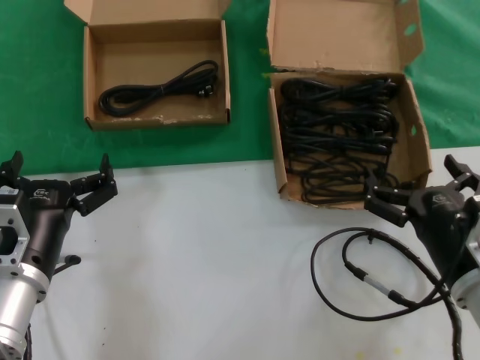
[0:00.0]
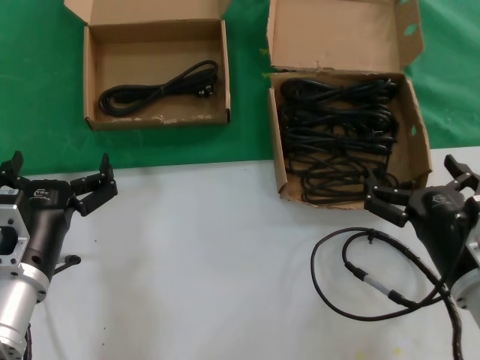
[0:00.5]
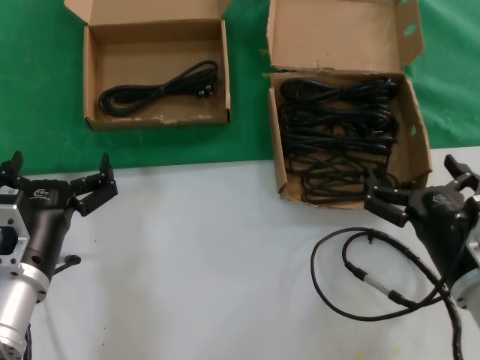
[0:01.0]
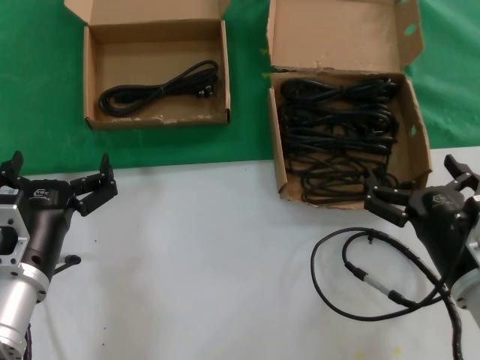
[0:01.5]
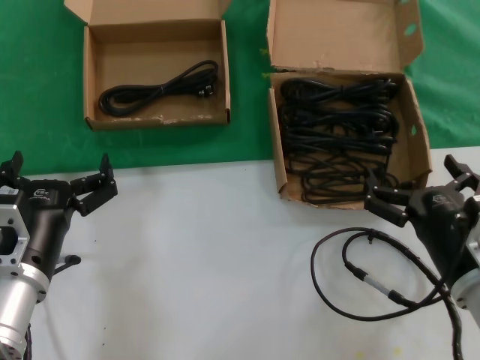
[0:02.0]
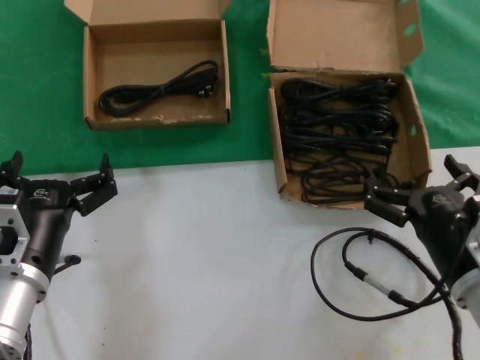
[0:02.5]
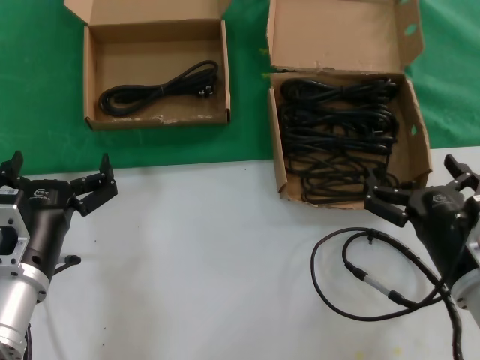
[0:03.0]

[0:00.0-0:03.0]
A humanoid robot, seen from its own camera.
Task of the whole recording: take the parts from the box containing them and put them into an empty box.
0.0 to 3.0 s: The two hands keep their place.

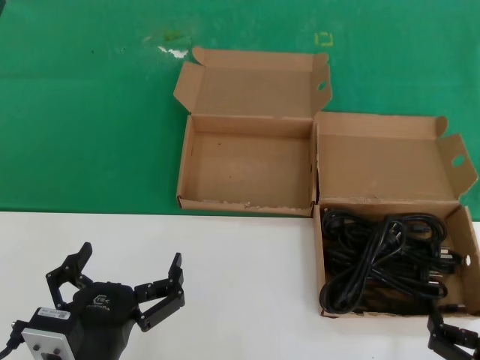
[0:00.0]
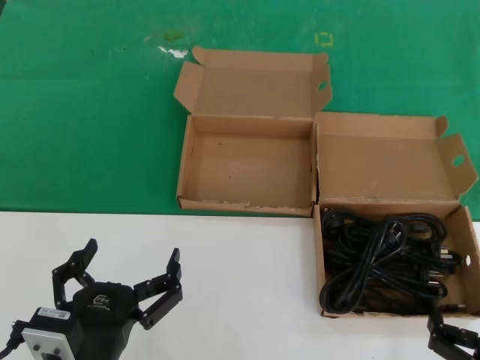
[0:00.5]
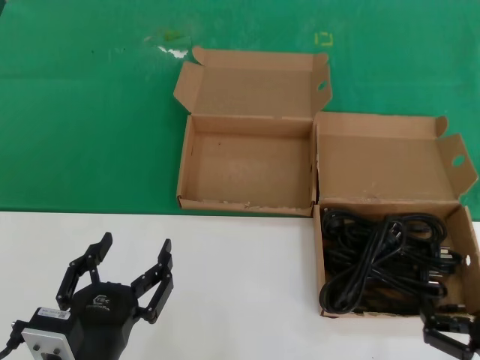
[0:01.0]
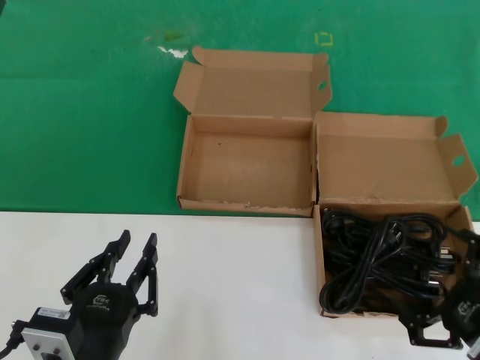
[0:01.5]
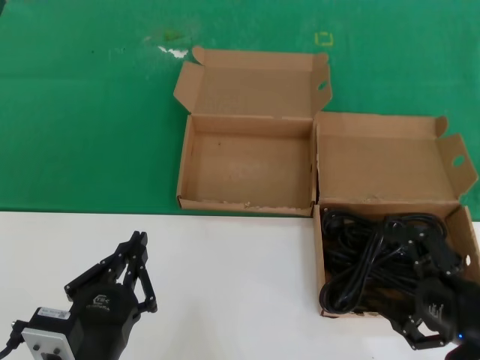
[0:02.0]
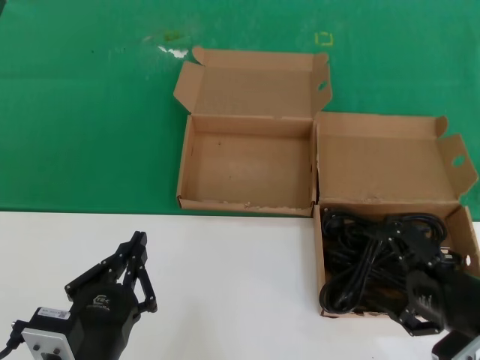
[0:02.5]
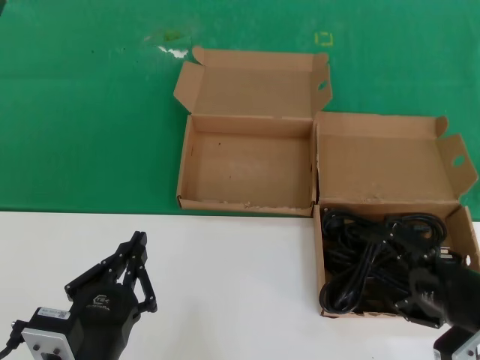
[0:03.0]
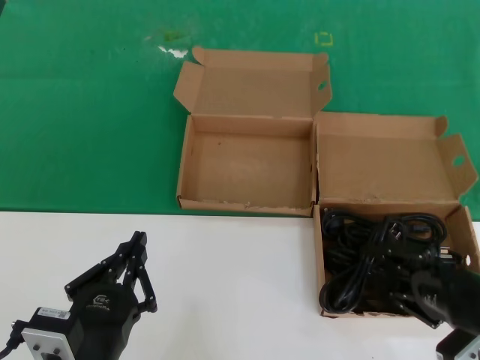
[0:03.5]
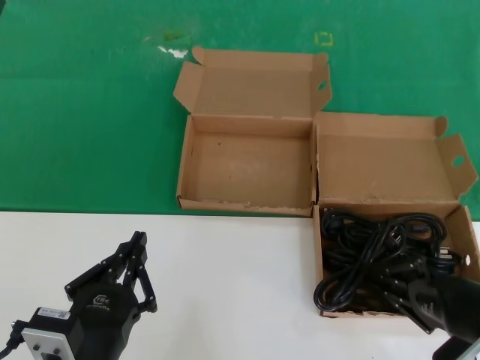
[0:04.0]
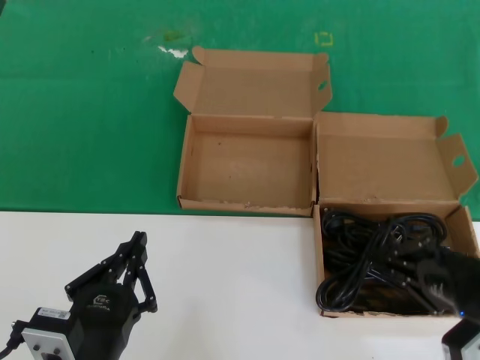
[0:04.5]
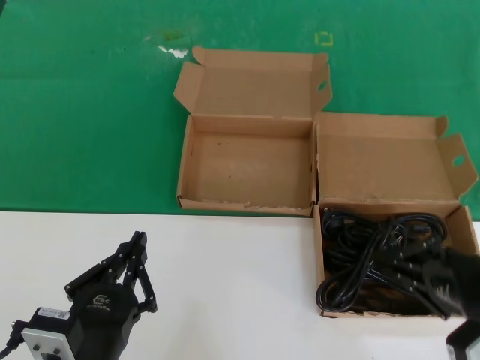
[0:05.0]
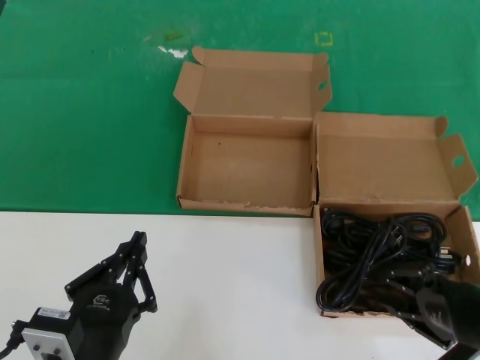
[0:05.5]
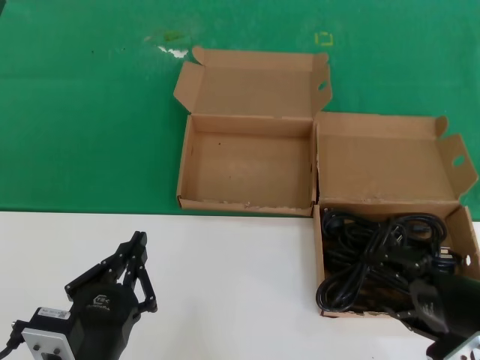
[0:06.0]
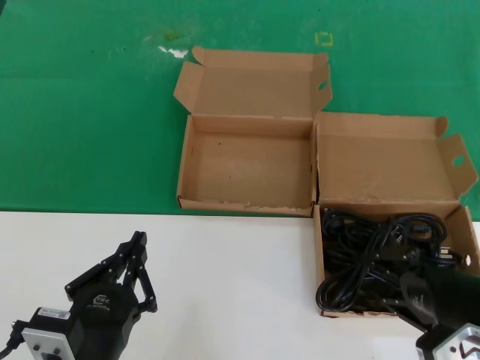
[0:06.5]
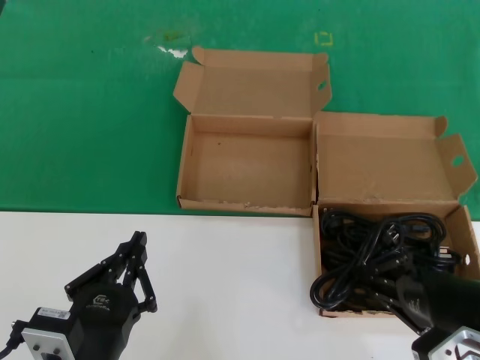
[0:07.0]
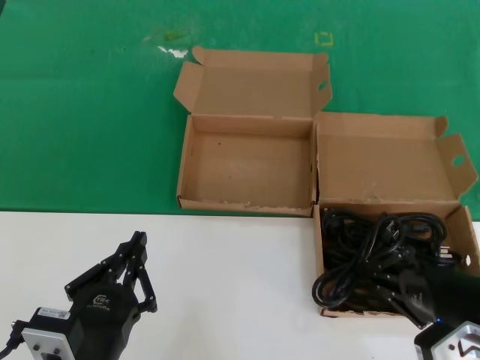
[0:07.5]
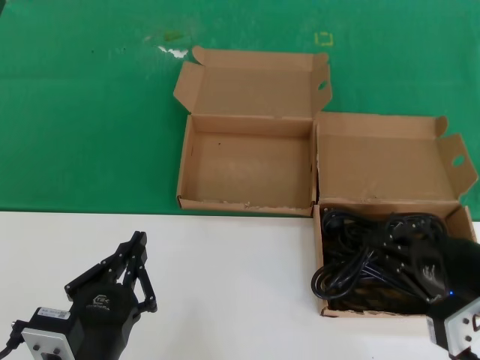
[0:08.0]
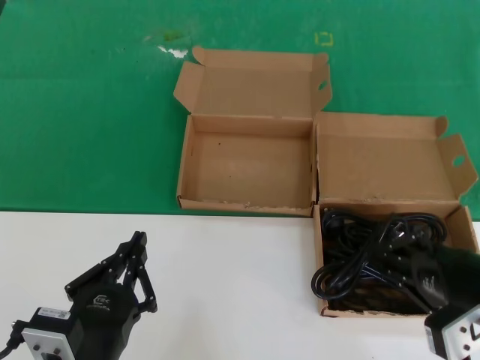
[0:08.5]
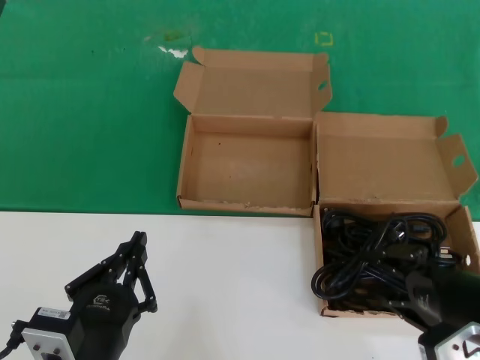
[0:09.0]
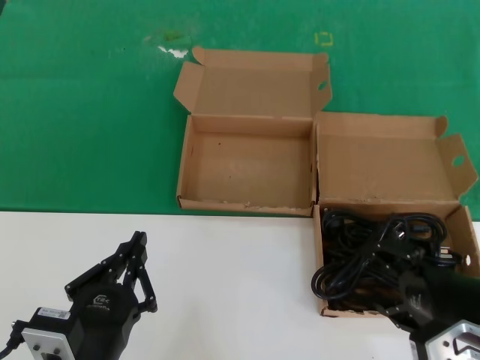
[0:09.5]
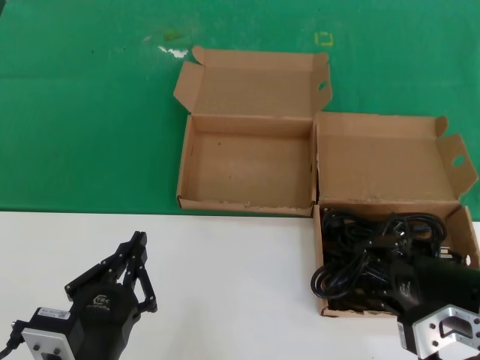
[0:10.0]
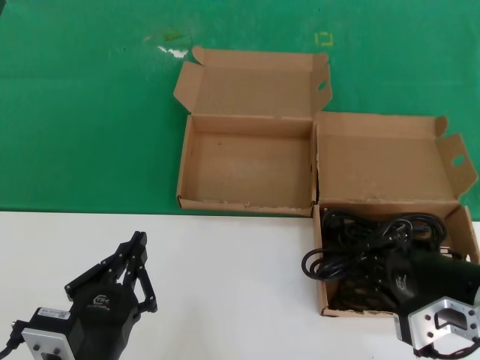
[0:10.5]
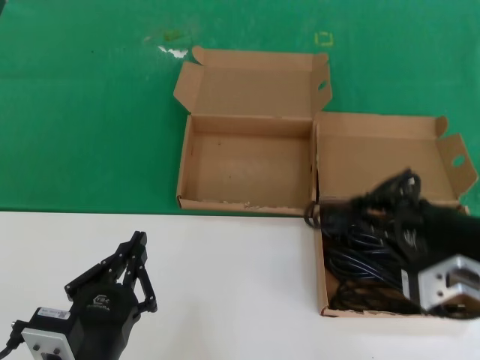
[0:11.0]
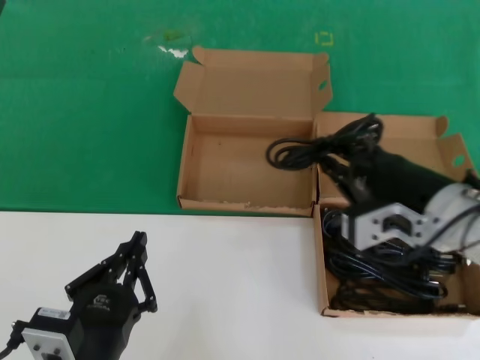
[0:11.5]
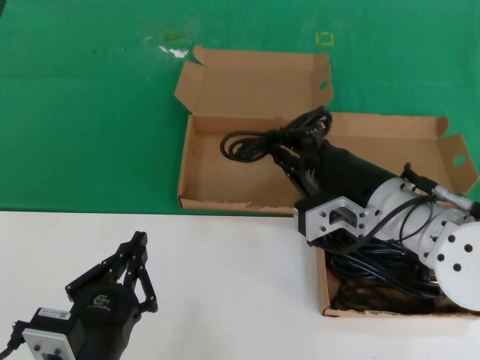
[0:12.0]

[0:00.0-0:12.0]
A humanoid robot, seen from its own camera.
Task of the whole recording: take the parts from the box containing them and put them into an empty box.
Step, 0.0 to 10.0 s: Grasp the data cable.
0.0 to 2.0 s: The right hand is displaced upward and forward by approximately 10 cm.
2.0 to 4.0 s: The hands stay close to where they were, moving slightly.
6.0 to 10.0 s: The hands make only small movements.
10.0 to 12.0 s: The right hand is displaced to the left and forward by some 15 cm.

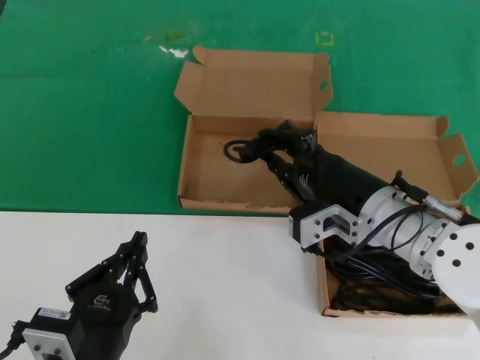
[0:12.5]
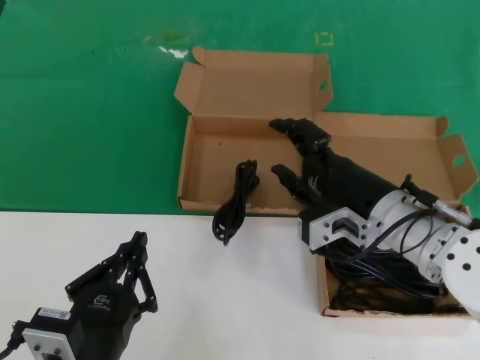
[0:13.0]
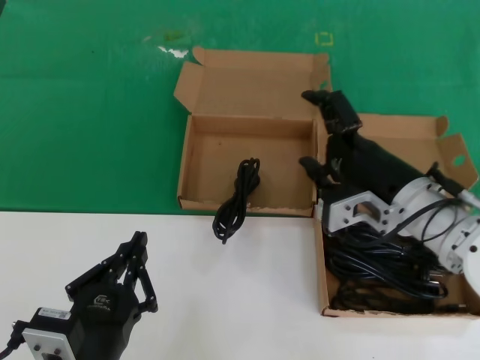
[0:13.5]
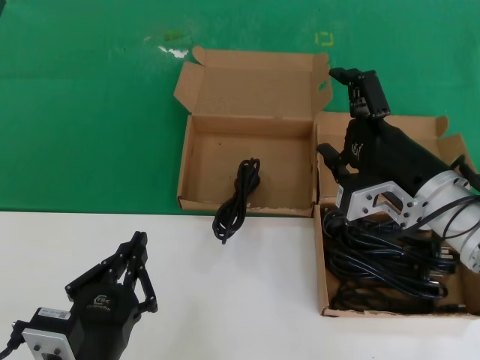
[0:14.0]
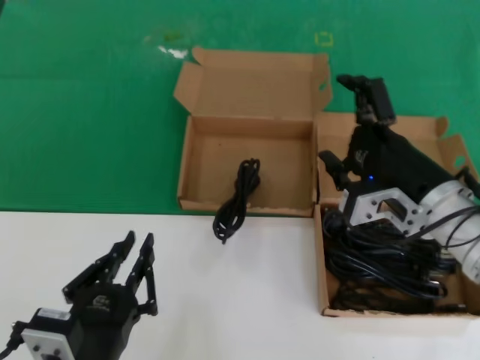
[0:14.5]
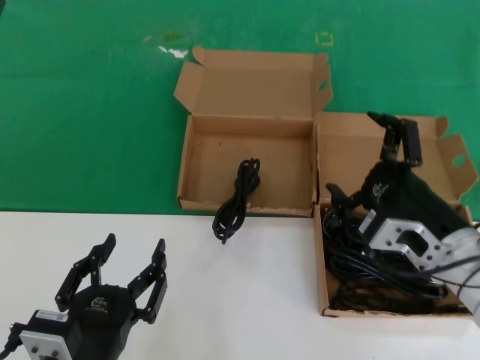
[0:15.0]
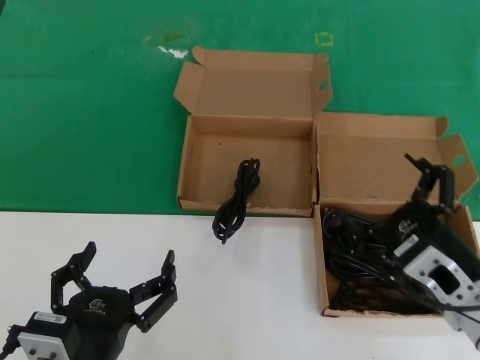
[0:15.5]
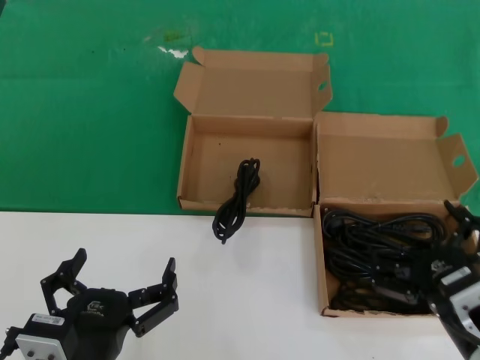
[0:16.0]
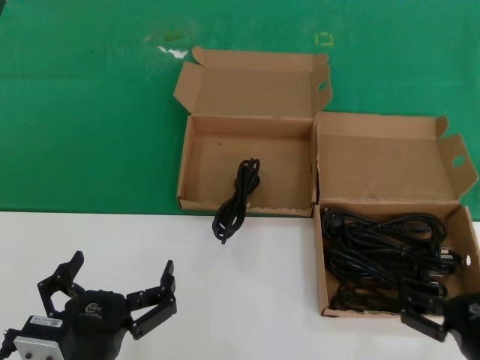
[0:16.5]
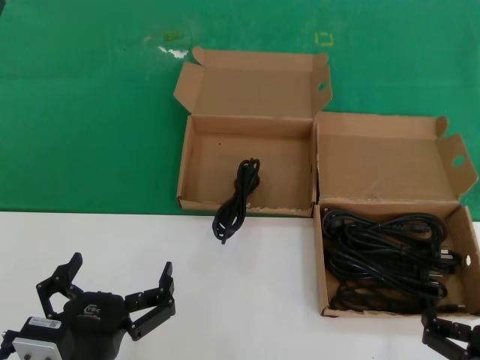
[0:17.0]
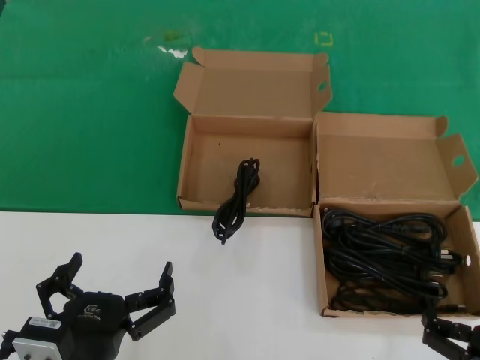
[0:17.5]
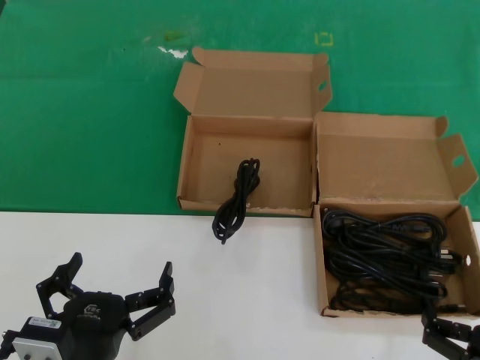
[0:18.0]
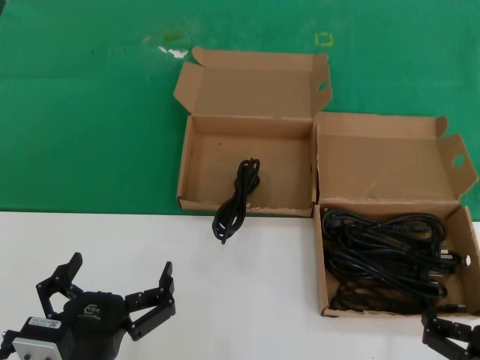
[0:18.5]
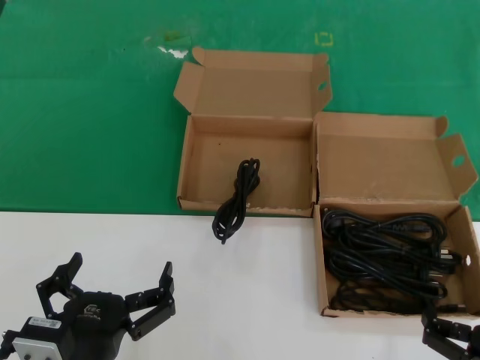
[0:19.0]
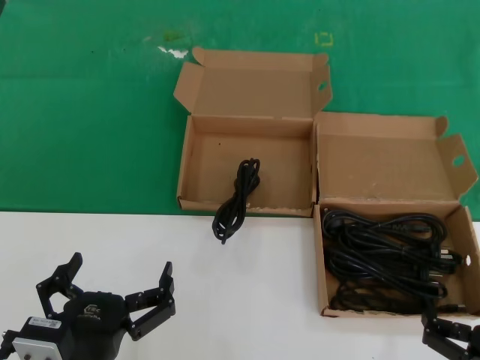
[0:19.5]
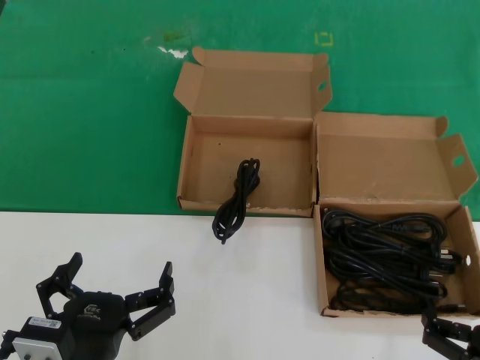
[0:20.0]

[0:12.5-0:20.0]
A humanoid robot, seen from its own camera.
Task of the whole recording: take the parts from the box containing them and put them into an empty box.
12.5 to 14.5 s: The right hand heads to the right, covering roughly 5 cm.
14.5 to 16.5 s: The right hand heads downward, backward and to the right, covering approximately 20 cm.
16.5 to 18.0 s: There are only small adjustments of the hands.
18.0 to 20.0 s: The two hands keep their place.

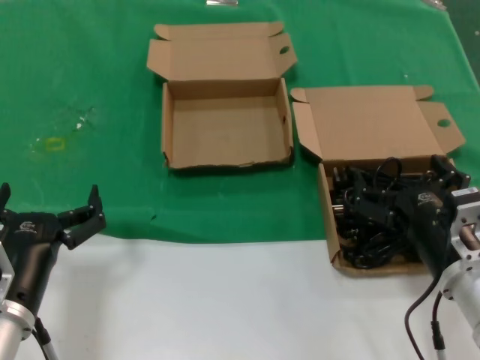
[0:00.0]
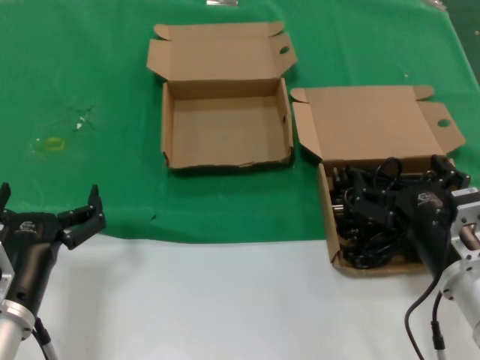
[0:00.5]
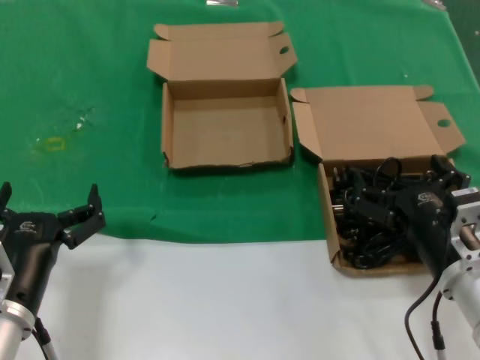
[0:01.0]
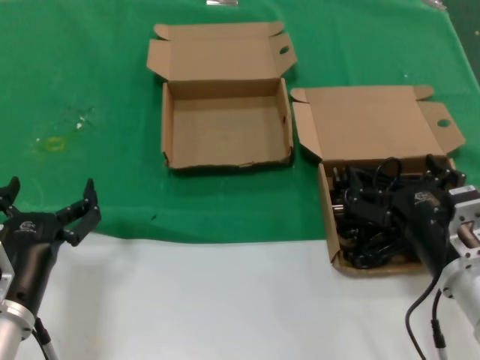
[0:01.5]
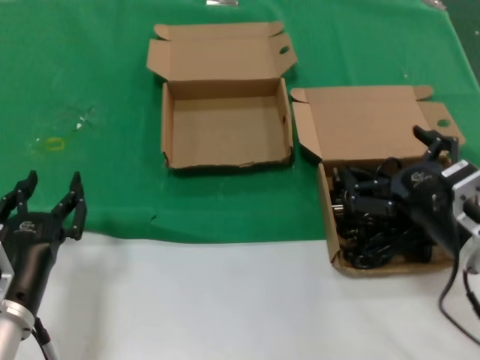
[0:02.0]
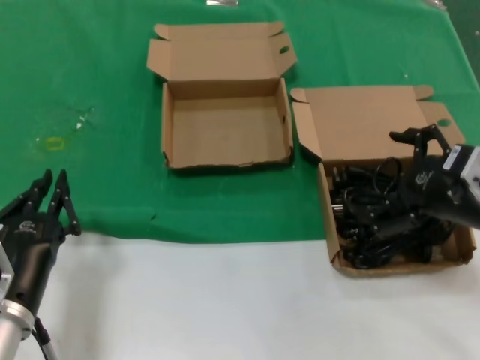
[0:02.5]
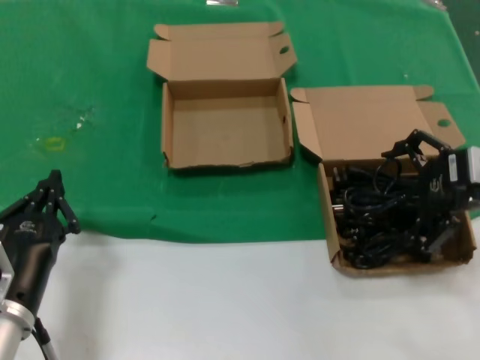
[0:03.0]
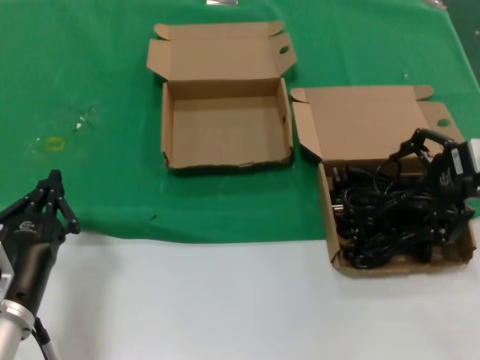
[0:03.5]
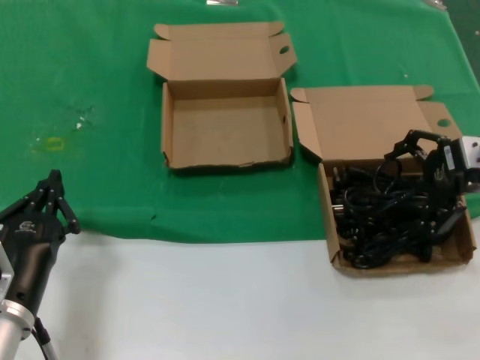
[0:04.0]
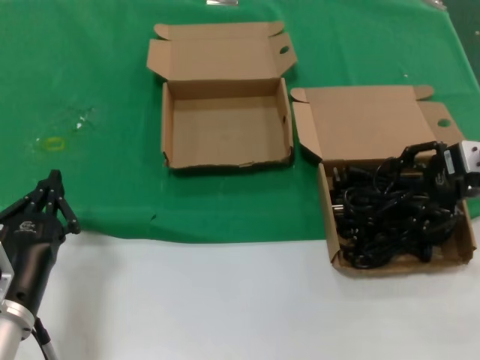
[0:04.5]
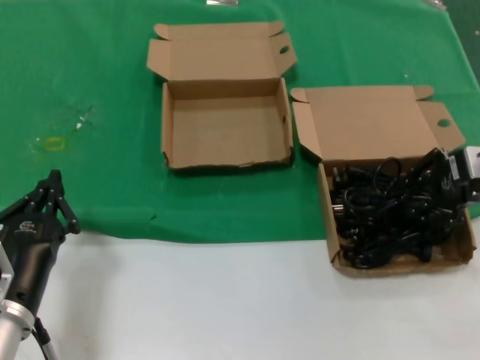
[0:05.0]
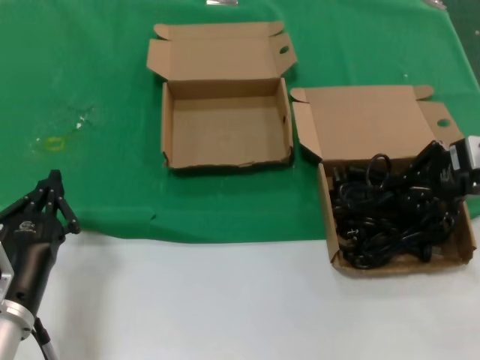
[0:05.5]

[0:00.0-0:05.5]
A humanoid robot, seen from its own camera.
Task of the whole recording: take the parts from the box containing them and put them into an empty box.
Step, 0.0 to 5.0 s: Grasp the data cable.
0.0 to 2.0 s: There are only small adjustments of the hands.
2.0 to 3.5 s: The right hand goes some 20 cm upward, forward and to the right.
3.5 to 5.5 s: The hands make only small movements.
